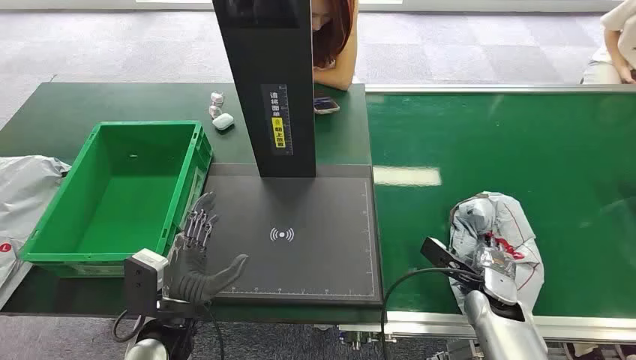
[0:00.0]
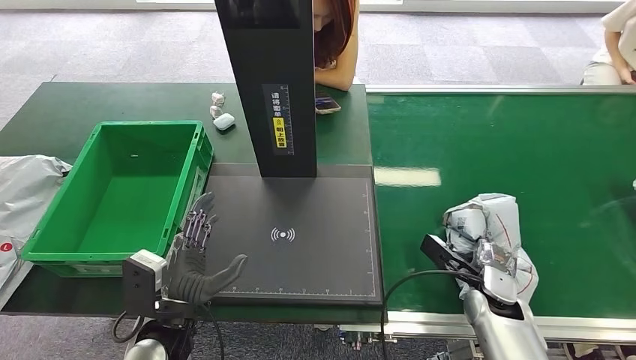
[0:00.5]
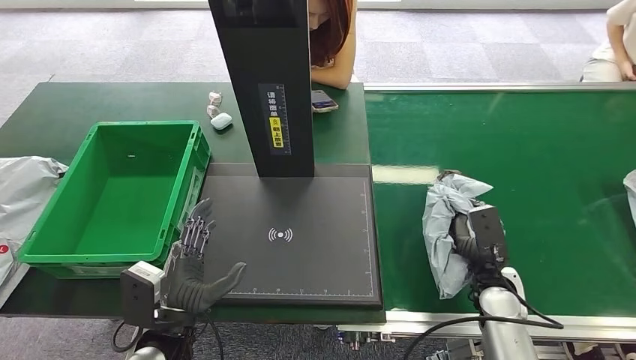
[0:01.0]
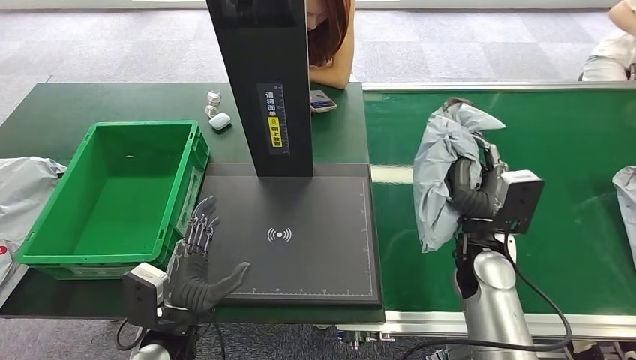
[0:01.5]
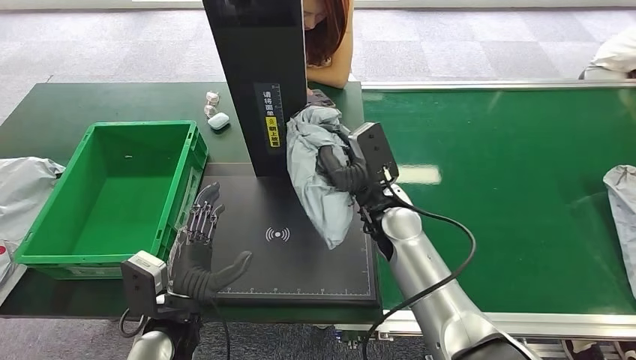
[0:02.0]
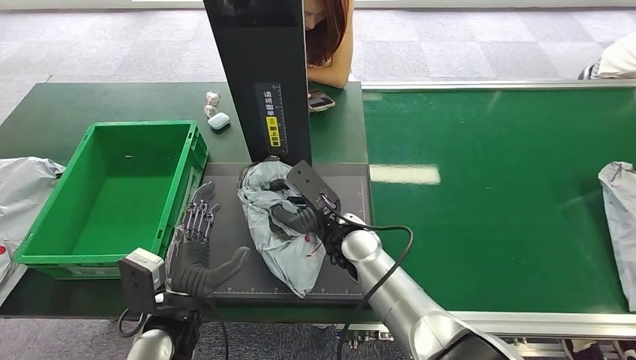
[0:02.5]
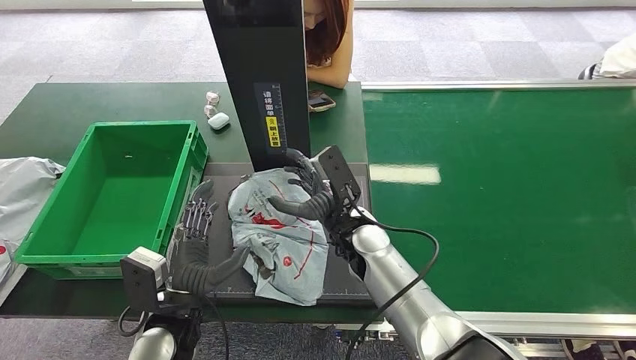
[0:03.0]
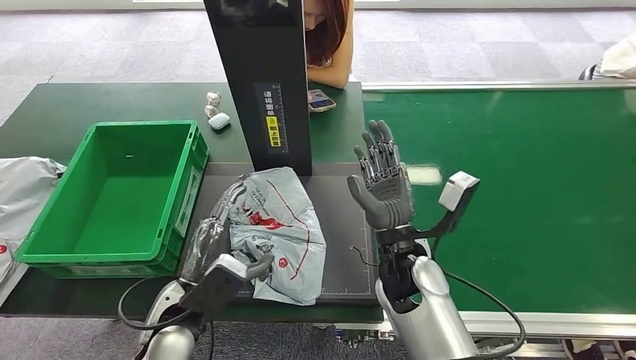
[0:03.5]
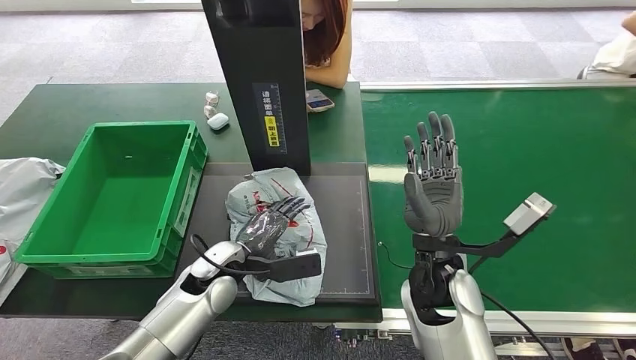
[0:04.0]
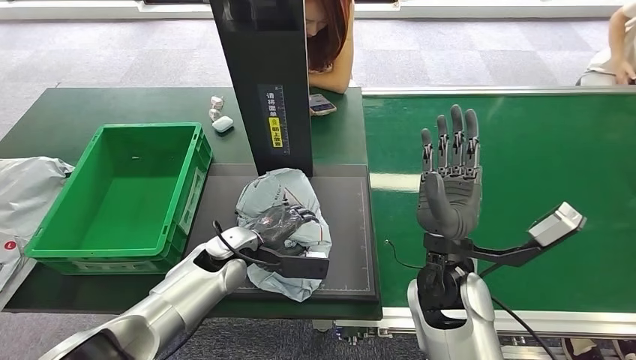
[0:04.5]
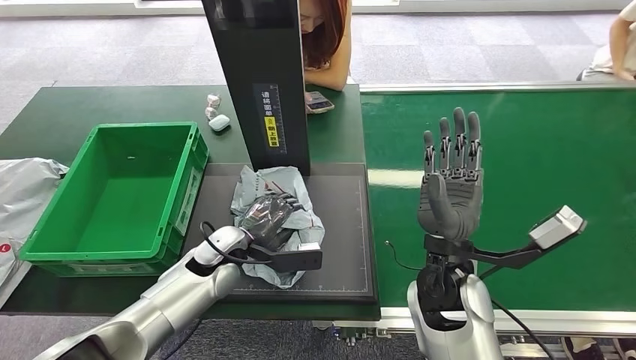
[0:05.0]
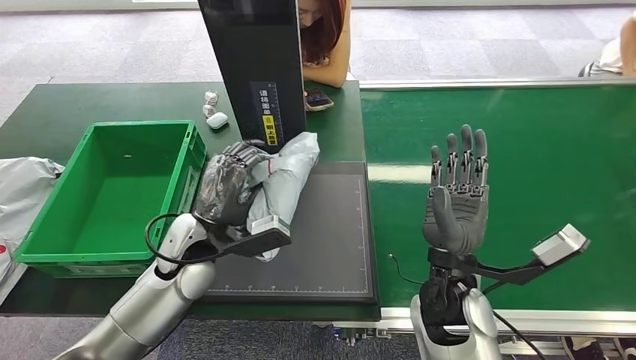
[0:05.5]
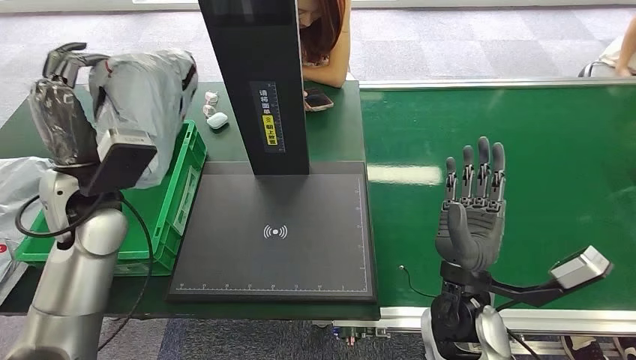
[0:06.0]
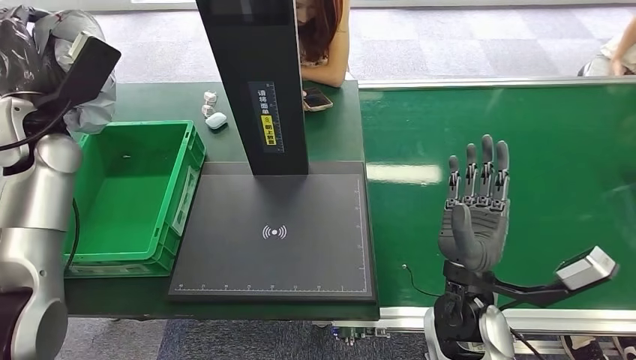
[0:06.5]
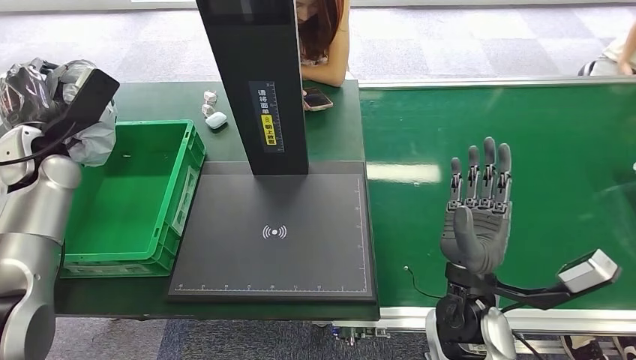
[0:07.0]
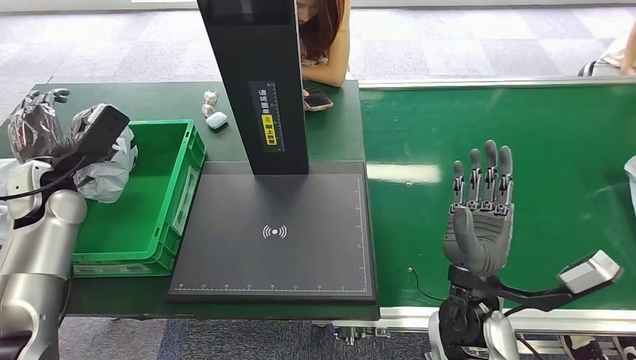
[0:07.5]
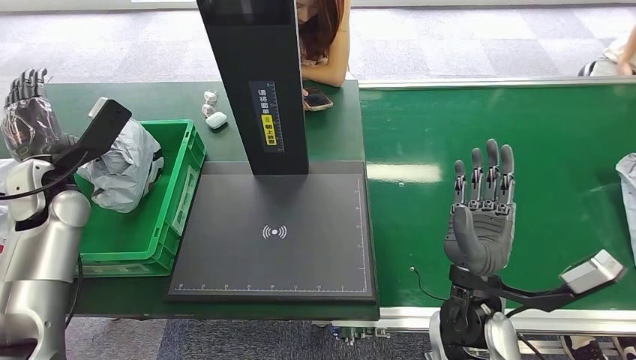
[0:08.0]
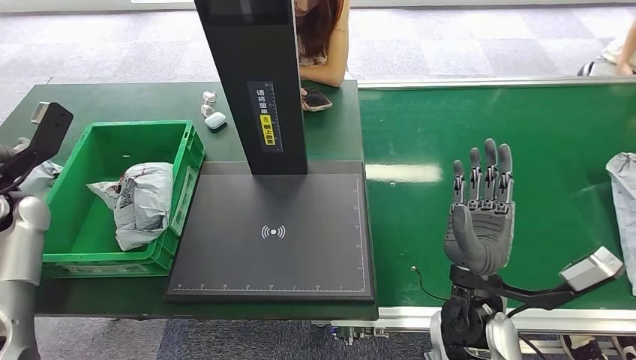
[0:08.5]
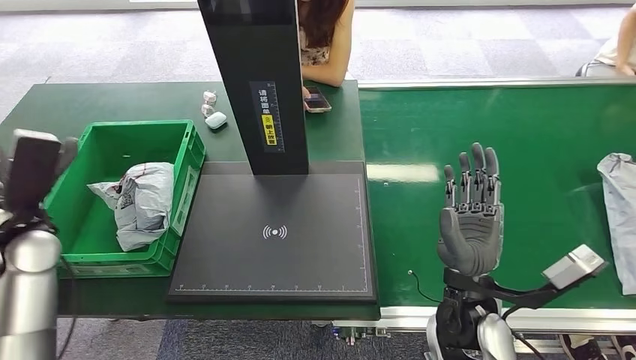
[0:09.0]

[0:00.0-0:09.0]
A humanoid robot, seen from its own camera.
Task of the whole recording: Weigh the package on the weighing device and place it in the left basket.
Step, 0:00.0 to 0:01.5: Pick up the package from the conveyor belt.
Step, 0:02.0 to 0:04.5: Place the package onto the inbound machine.
Step, 0:05.0 to 0:07.0: Pick up the package from the inbound machine.
Step, 0:07.5 to 0:09.0: Place the package into the parcel locker.
0:07.0 to 0:09.0: The left hand shifts approximately 10 cm backward and downward.
